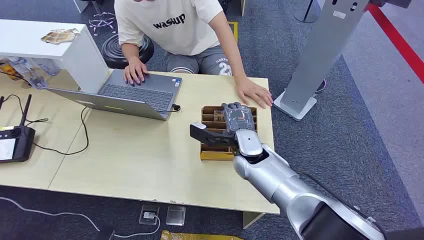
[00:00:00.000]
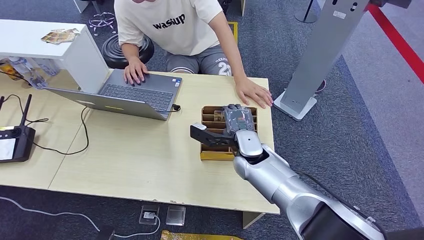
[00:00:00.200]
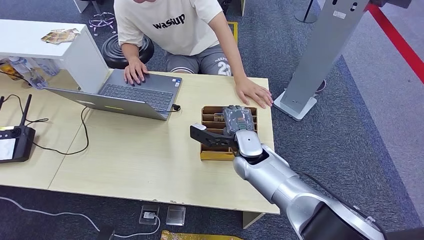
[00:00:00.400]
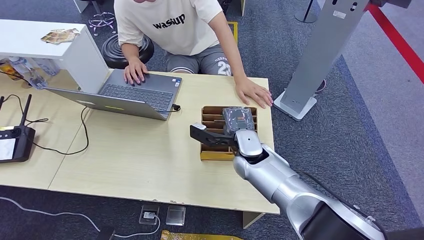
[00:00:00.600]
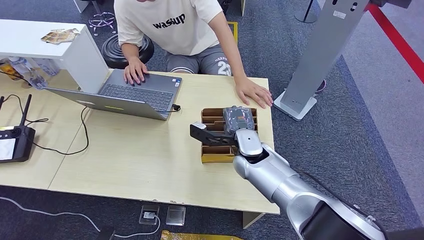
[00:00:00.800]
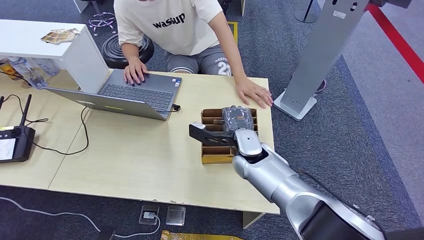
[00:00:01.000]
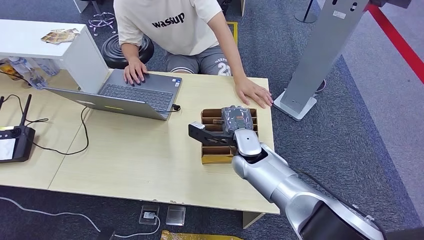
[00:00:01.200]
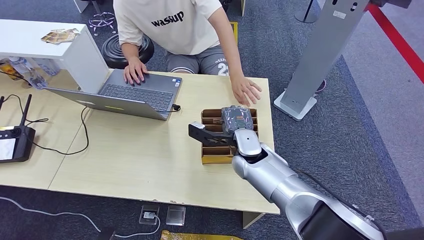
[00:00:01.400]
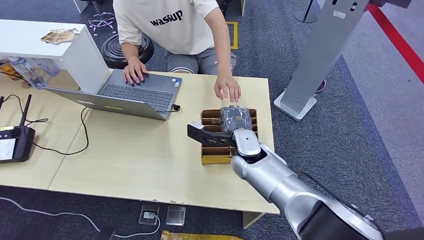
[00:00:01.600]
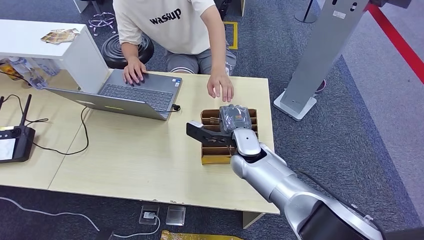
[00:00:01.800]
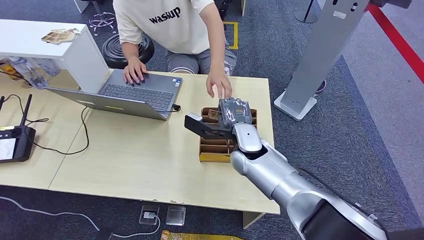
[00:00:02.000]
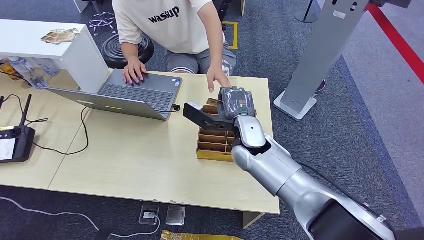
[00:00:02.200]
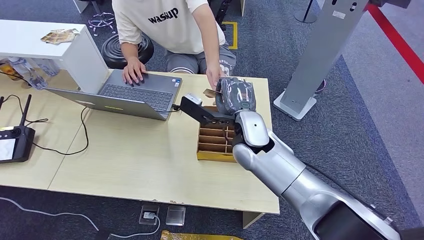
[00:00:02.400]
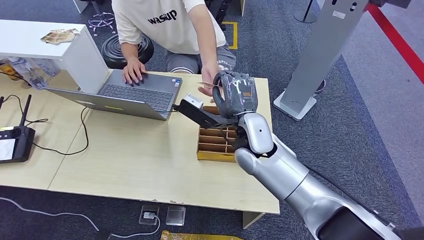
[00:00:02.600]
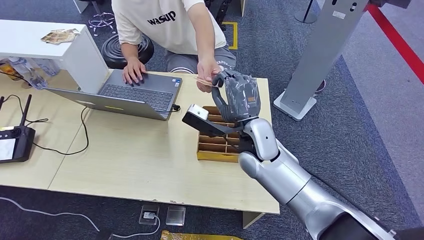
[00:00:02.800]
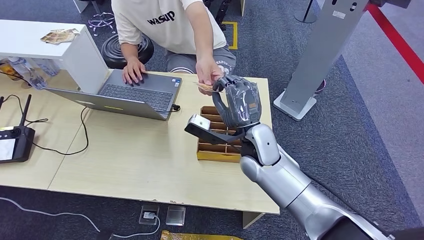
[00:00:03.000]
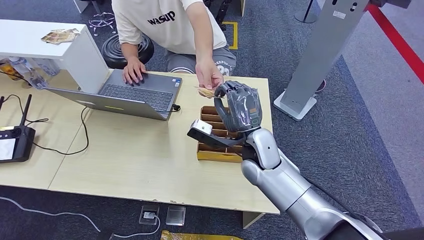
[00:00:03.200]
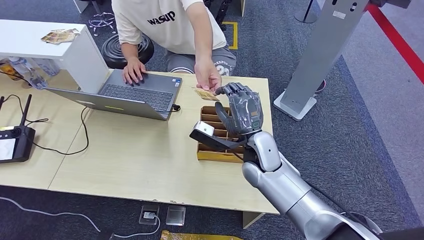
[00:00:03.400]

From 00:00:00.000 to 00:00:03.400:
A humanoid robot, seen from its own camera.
Step, from 00:00:00.000 to 00:00:02.000: Pick up the key card from the card box.
Step, from 00:00:02.200 to 00:00:03.400: Hand the key card to the target.
From 00:00:01.600 to 00:00:03.400: The right hand reaches about 10 cm upward, then returns.

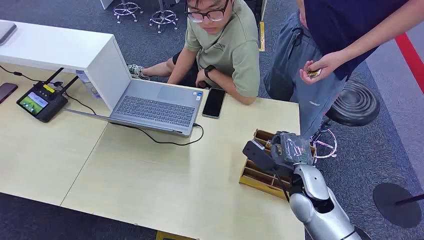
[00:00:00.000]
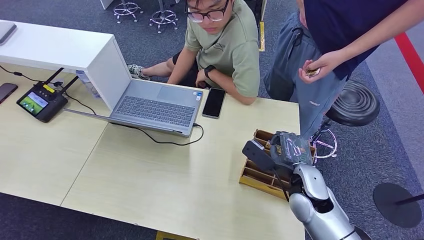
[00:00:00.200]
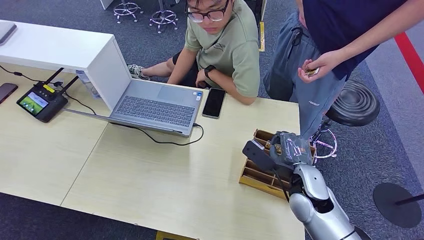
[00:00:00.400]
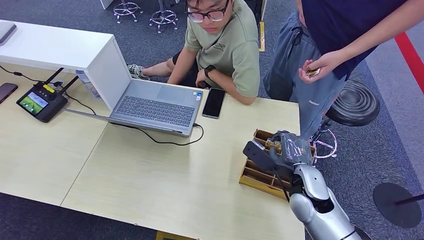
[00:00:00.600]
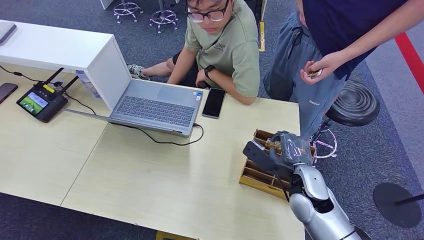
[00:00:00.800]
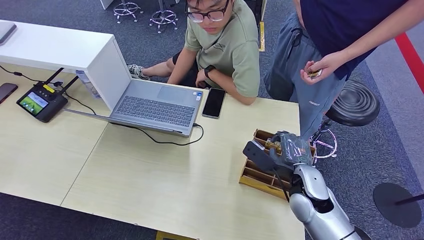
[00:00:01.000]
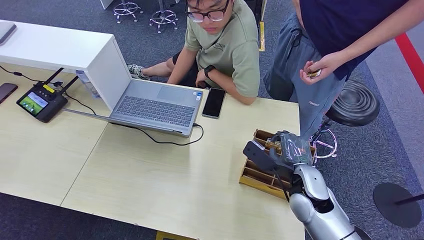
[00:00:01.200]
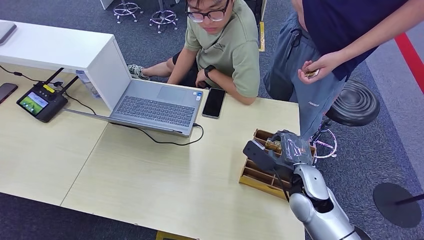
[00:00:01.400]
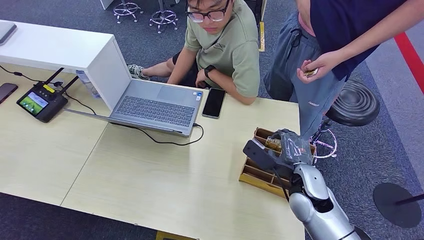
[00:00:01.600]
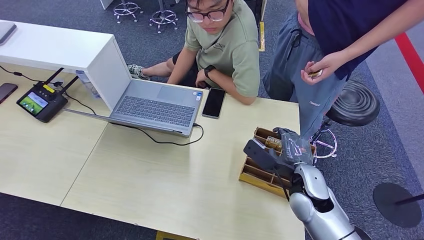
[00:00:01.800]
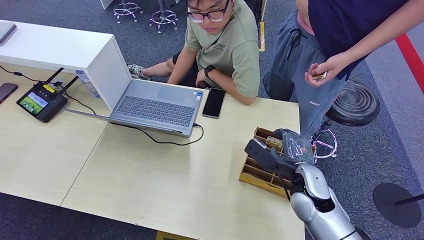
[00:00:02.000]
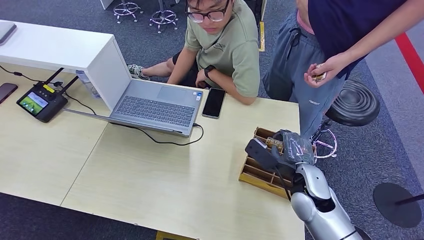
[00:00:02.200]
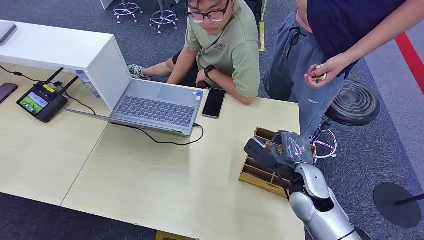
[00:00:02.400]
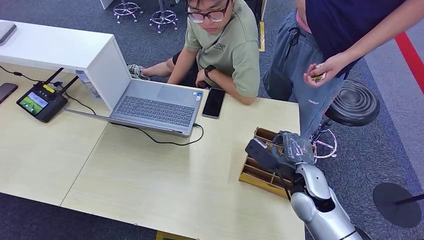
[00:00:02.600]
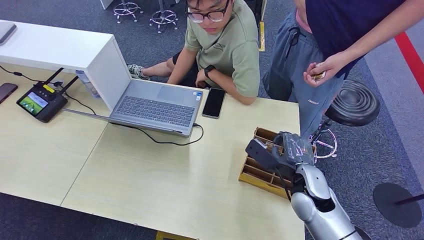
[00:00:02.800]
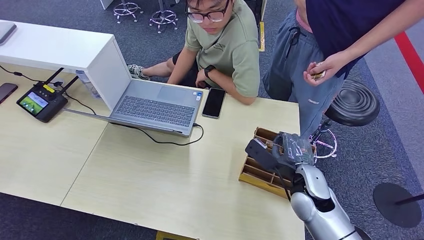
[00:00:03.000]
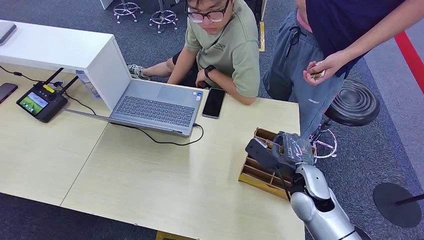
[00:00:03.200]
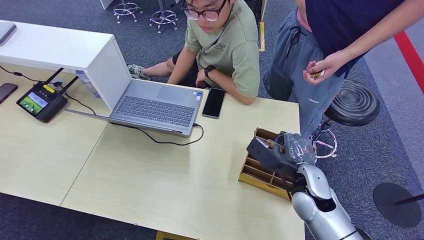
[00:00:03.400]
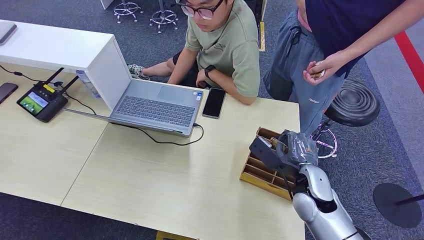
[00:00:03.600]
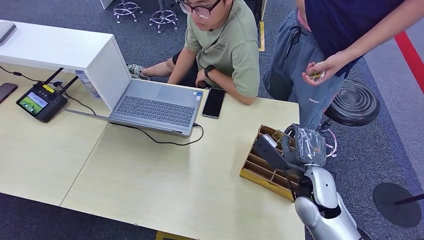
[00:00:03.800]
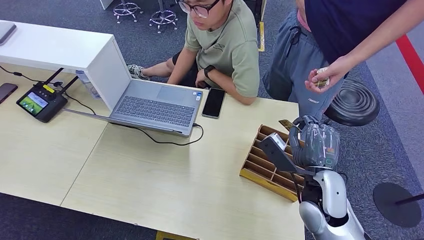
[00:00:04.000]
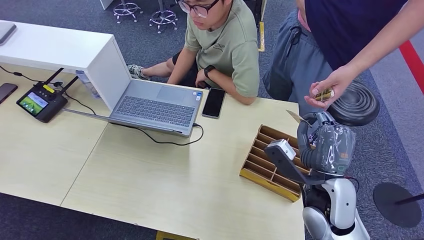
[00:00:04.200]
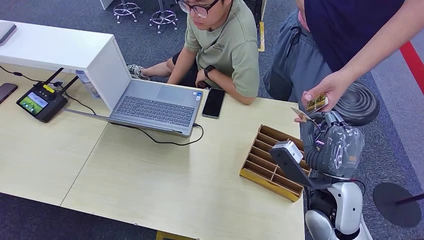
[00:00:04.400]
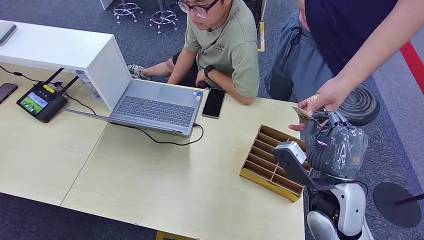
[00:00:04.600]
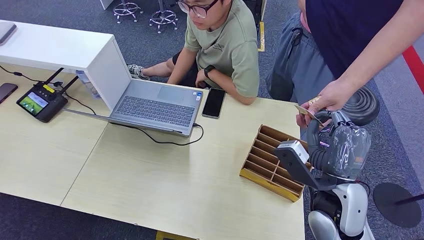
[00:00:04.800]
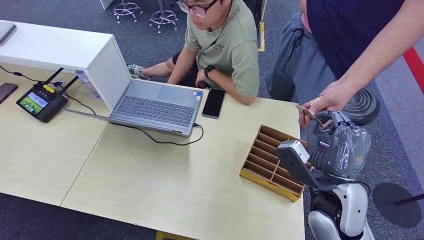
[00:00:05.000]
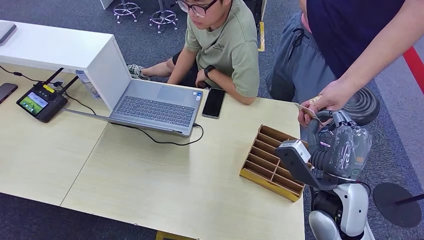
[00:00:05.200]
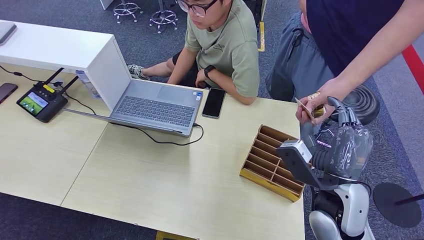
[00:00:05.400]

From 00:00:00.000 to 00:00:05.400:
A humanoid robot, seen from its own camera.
Step, from 00:00:00.000 to 00:00:03.800: Pick up the key card from the card box.
Step, from 00:00:04.200 to 00:00:05.400: Hand the key card to the target.
From 00:00:01.400 to 00:00:02.800: Neither hand changes place.
From 00:00:04.000 to 00:00:05.400: The hands move only a little.
